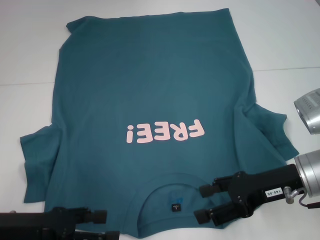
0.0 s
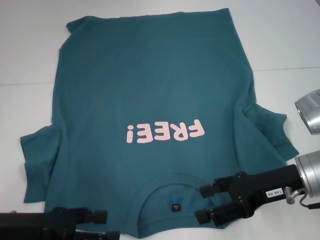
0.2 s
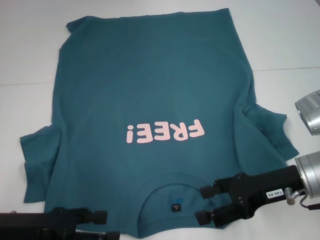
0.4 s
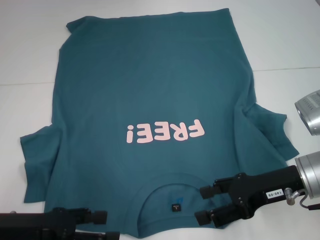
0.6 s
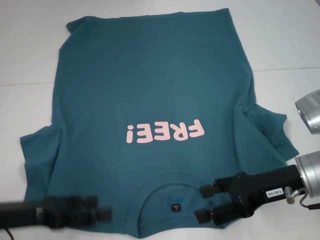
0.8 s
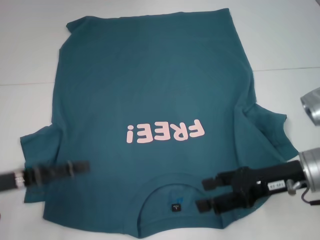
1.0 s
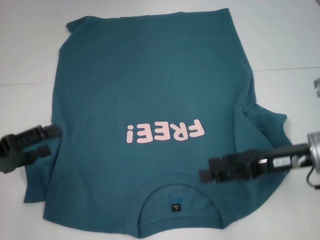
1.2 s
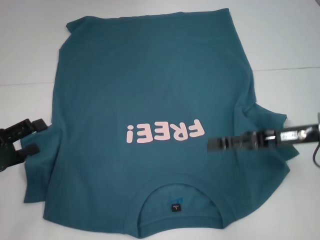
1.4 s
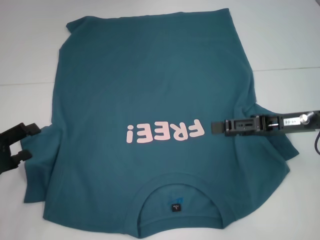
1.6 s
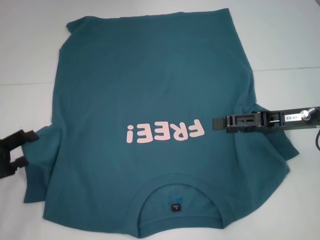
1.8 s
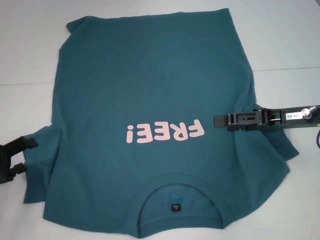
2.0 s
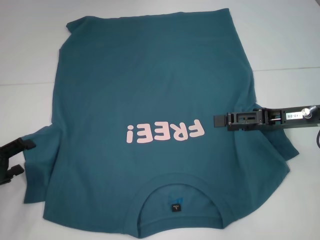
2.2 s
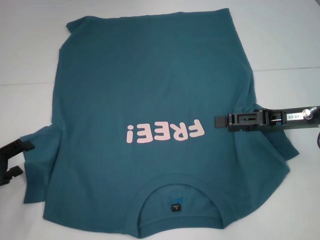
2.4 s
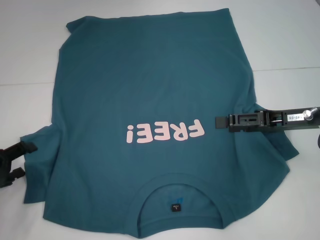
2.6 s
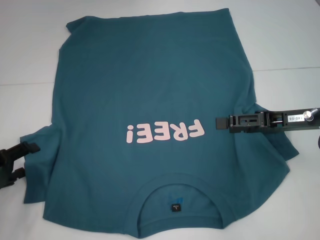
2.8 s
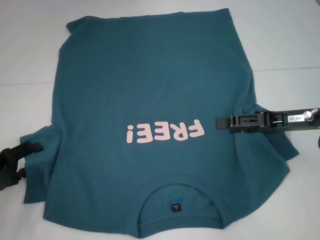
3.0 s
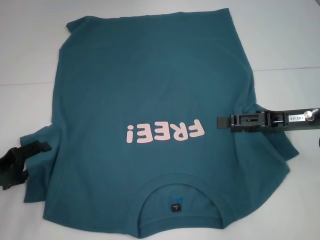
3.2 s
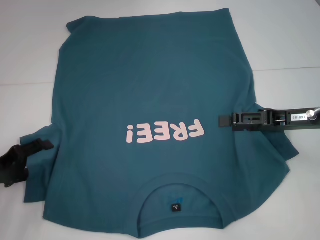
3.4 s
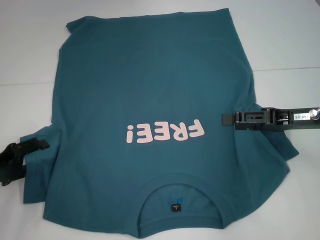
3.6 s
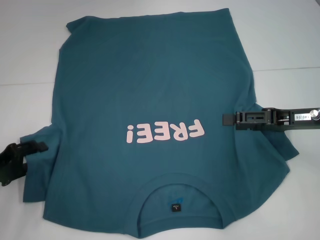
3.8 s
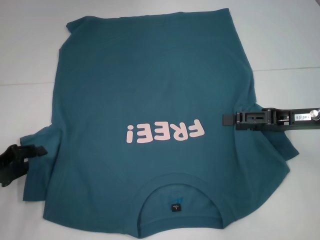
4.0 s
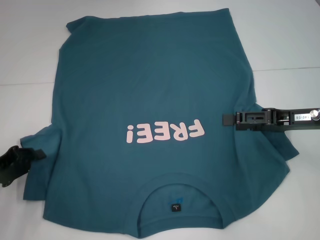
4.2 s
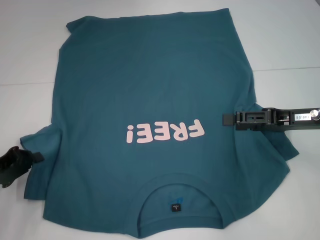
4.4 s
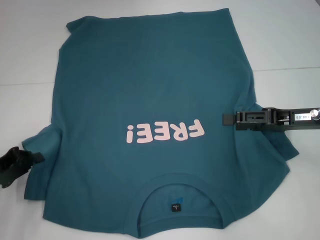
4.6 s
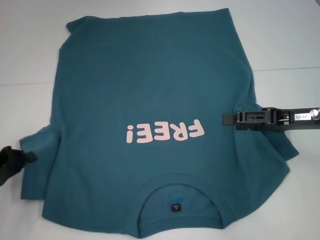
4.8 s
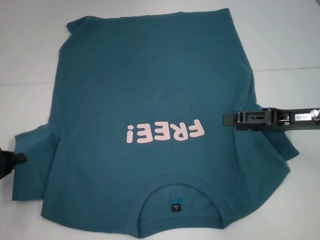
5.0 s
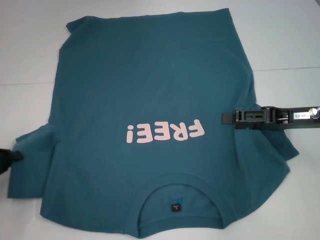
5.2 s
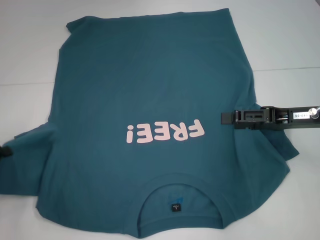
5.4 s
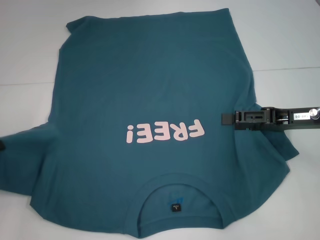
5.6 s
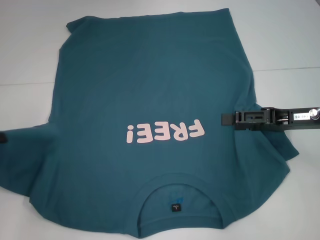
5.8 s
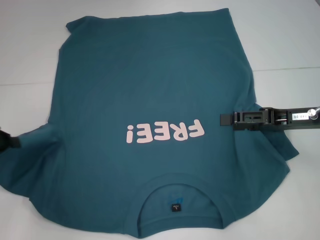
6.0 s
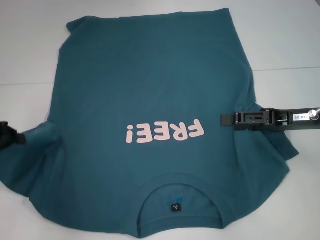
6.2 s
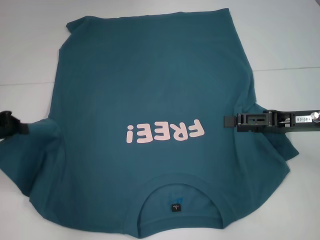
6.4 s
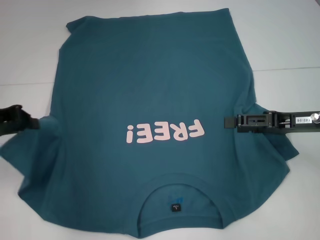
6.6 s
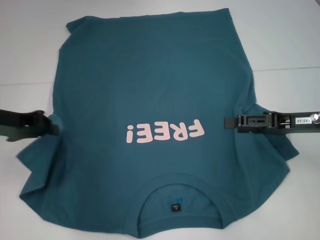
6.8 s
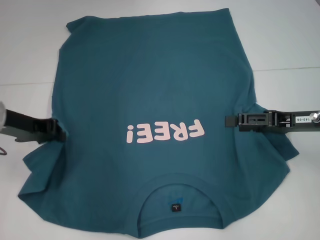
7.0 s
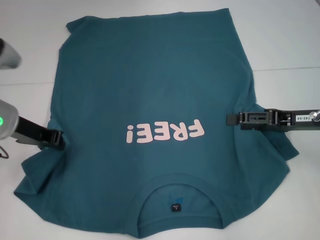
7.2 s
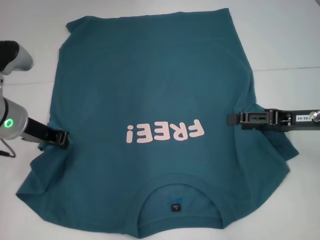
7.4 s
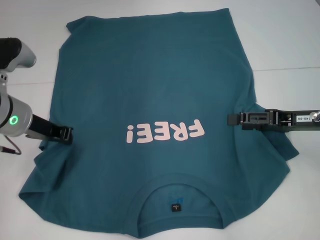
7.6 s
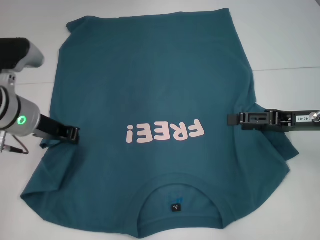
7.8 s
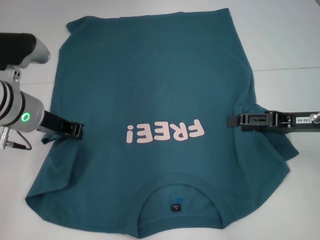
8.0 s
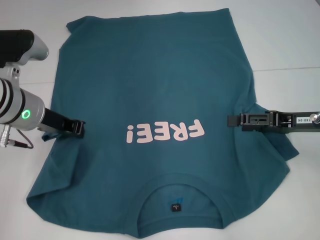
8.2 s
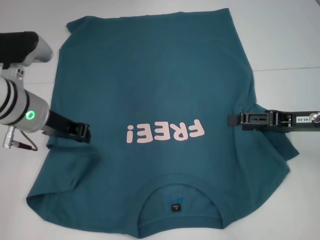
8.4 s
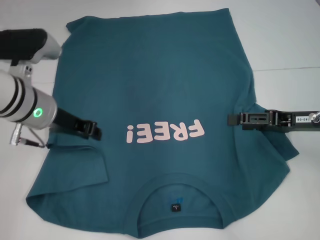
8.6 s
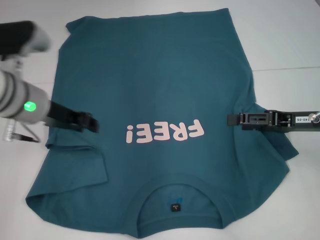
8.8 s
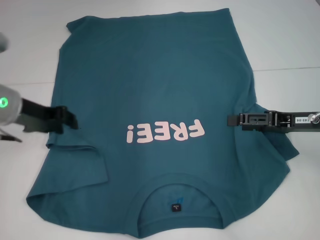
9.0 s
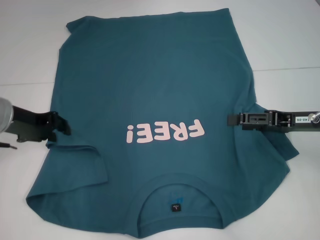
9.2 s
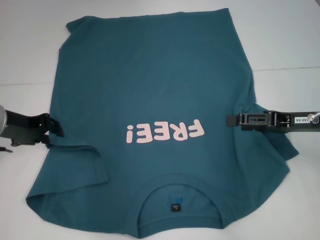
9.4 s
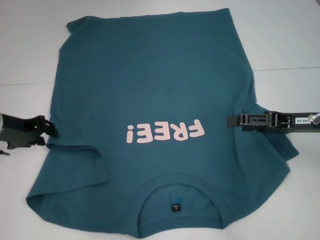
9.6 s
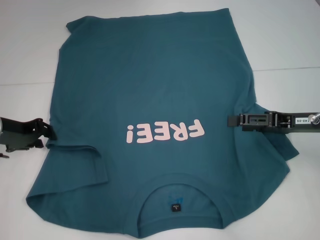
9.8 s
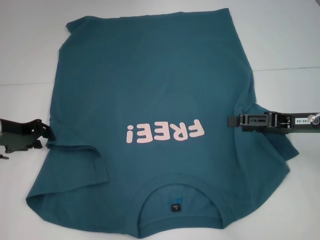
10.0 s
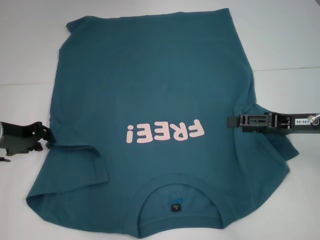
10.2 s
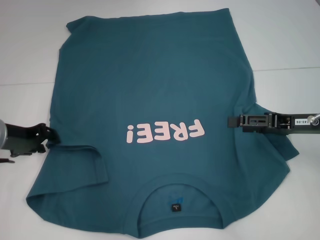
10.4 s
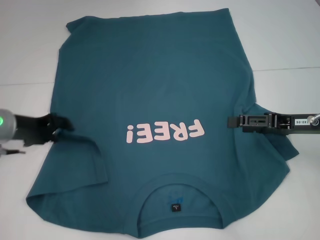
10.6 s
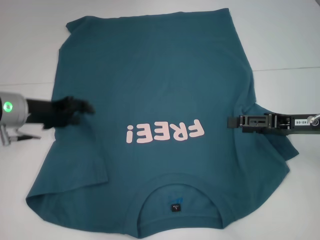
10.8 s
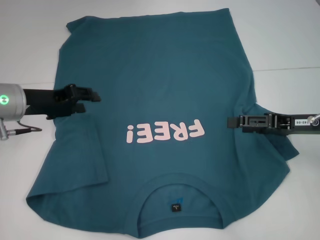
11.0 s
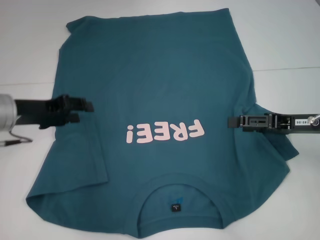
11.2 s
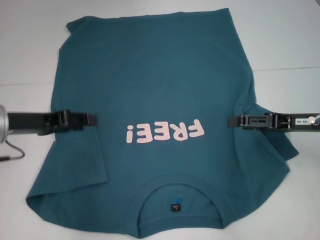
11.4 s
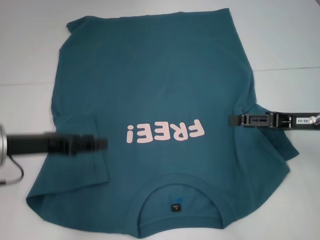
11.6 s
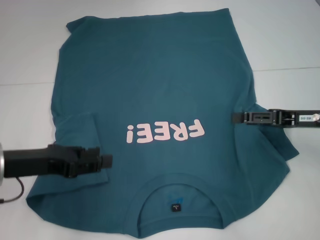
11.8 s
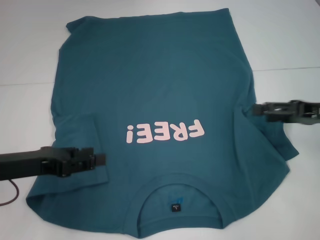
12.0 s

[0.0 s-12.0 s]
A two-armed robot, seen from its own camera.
Step, 0.0 to 10.8 s: Fold the bottom left sleeve with your left hand.
0.0 to 1.6 s: The left gripper is displaced to the left by approximately 10 cm; the right gripper moves roughly 5 cm.
1.6 to 3.0 s: There are only small adjustments of the grippers.
3.0 to 4.4 s: The left gripper closes up.
4.4 to 6.0 s: The left gripper moves upward, some 5 cm.
6.0 to 7.6 s: The left gripper travels to the right and forward by approximately 15 cm.
7.6 to 9.0 s: The left gripper opens.
9.0 to 10.4 s: The left gripper moves downward, some 5 cm.
10.4 to 12.0 s: The left gripper heads backward, covering some 10 cm.

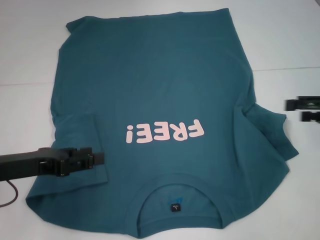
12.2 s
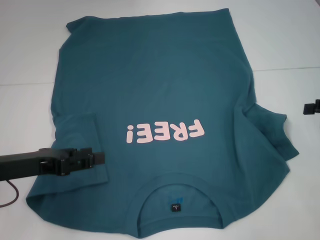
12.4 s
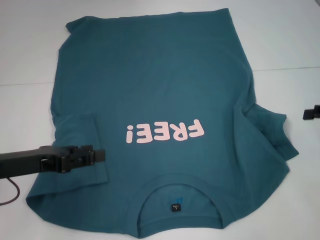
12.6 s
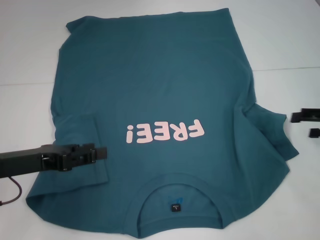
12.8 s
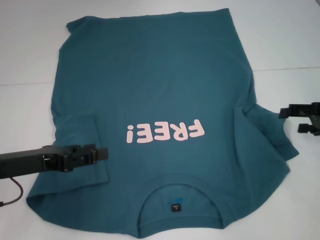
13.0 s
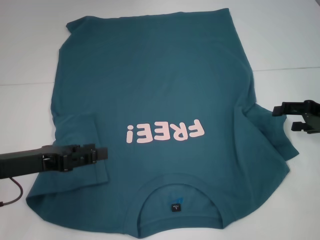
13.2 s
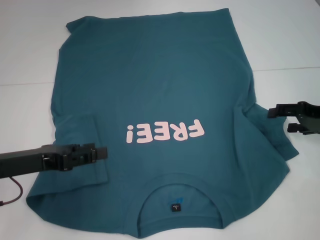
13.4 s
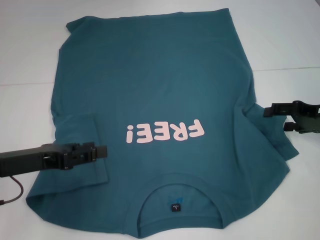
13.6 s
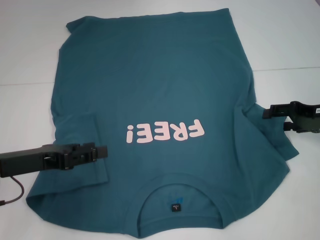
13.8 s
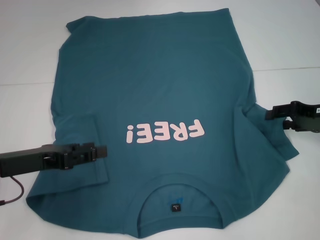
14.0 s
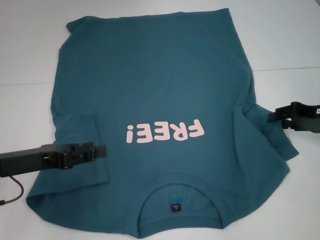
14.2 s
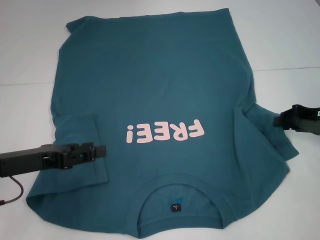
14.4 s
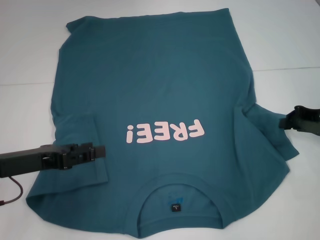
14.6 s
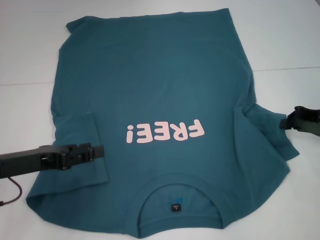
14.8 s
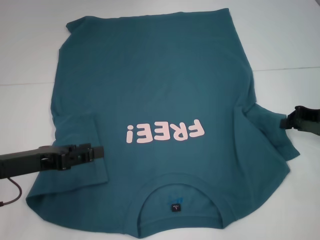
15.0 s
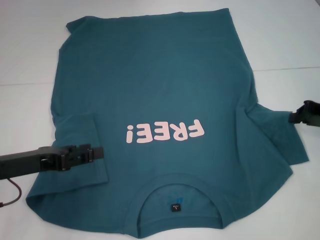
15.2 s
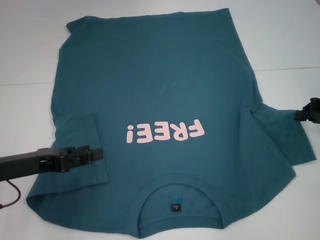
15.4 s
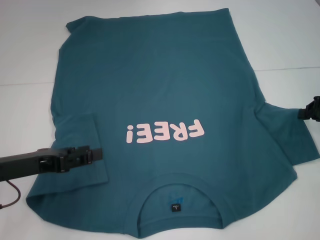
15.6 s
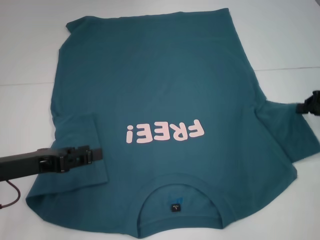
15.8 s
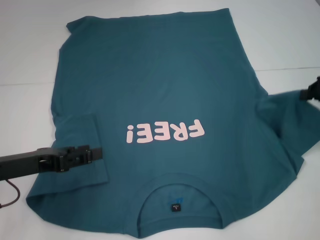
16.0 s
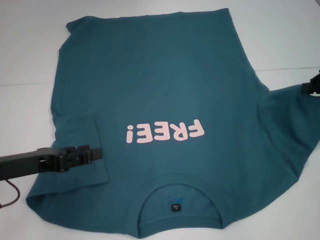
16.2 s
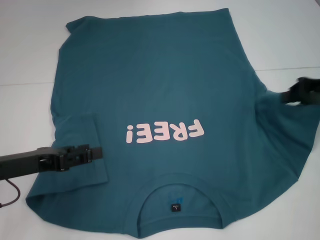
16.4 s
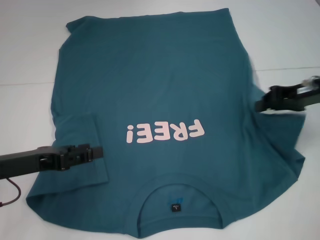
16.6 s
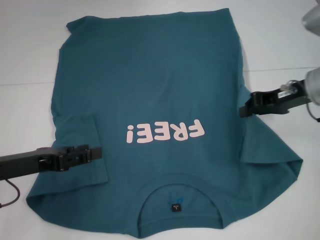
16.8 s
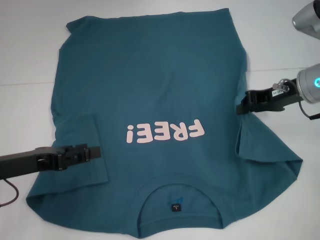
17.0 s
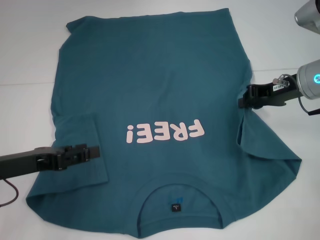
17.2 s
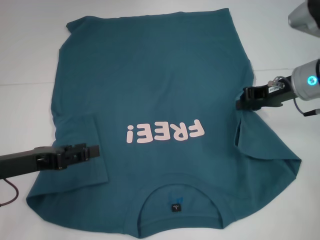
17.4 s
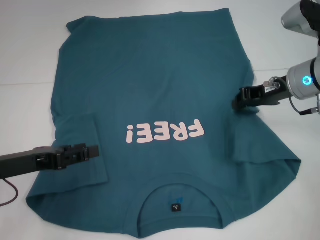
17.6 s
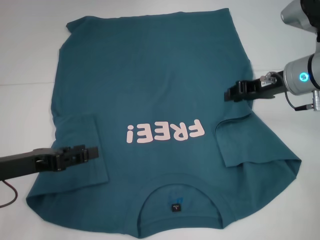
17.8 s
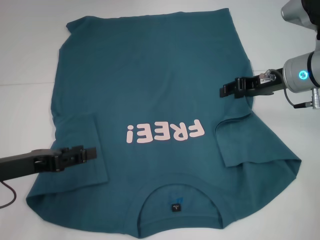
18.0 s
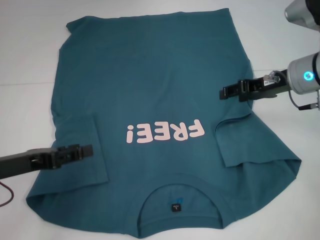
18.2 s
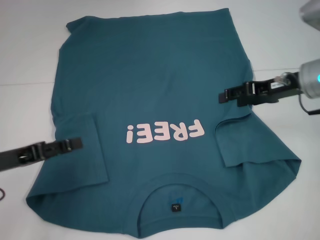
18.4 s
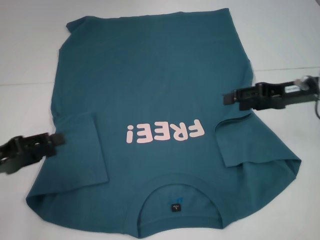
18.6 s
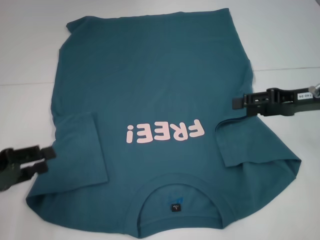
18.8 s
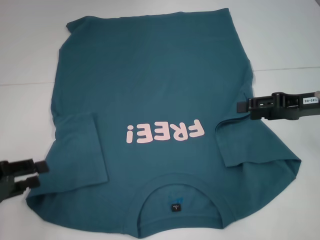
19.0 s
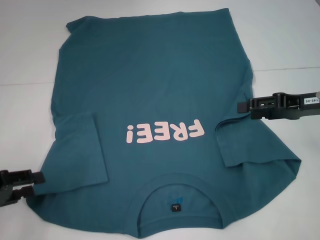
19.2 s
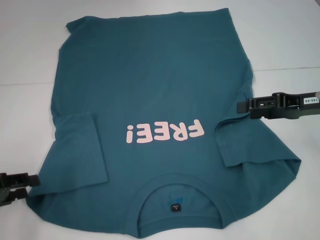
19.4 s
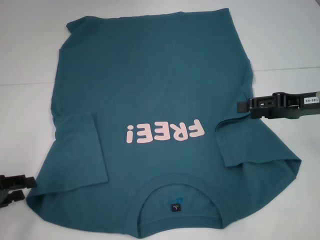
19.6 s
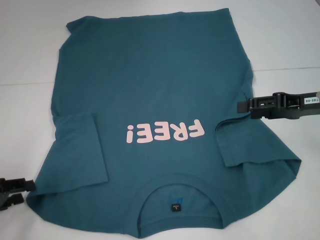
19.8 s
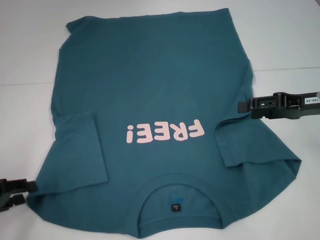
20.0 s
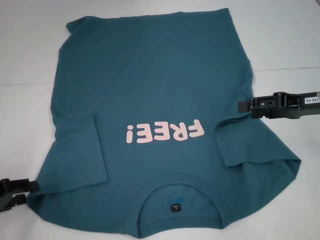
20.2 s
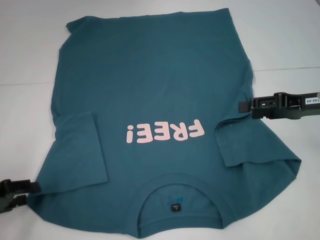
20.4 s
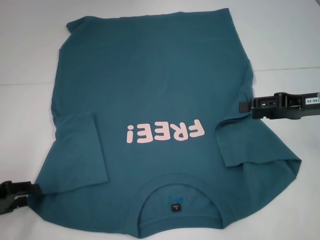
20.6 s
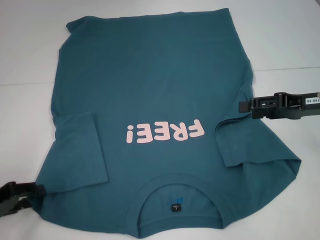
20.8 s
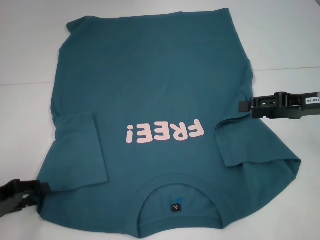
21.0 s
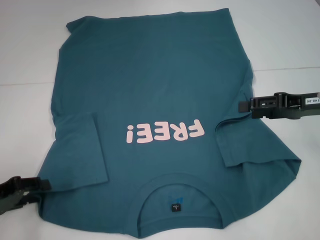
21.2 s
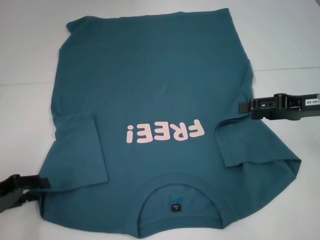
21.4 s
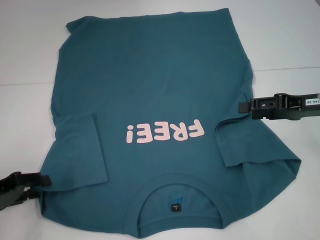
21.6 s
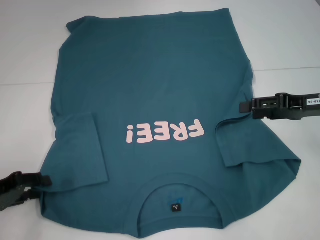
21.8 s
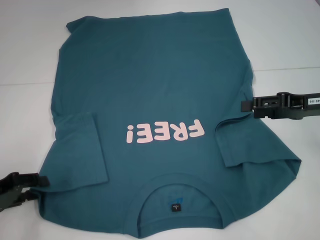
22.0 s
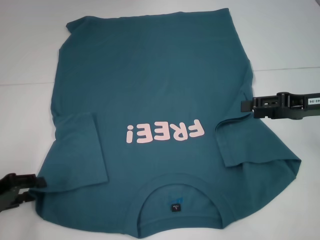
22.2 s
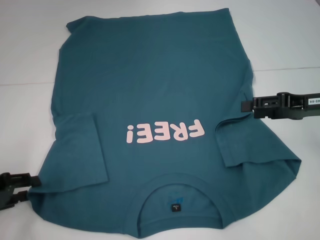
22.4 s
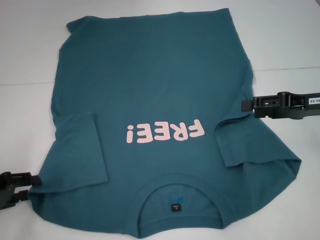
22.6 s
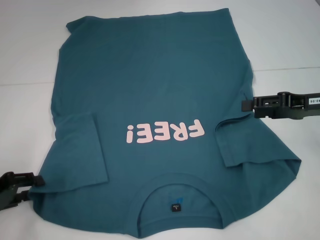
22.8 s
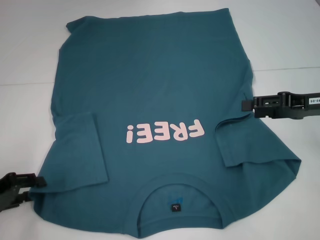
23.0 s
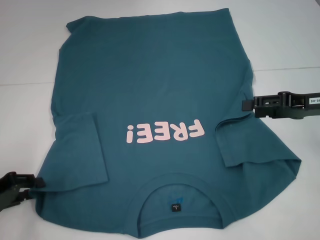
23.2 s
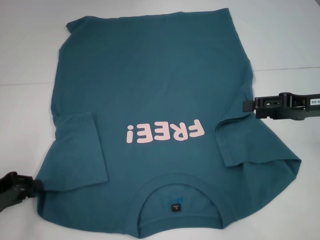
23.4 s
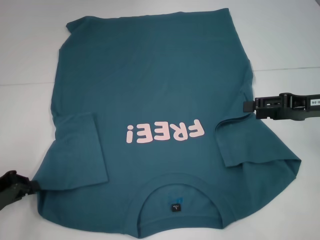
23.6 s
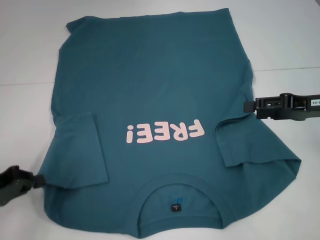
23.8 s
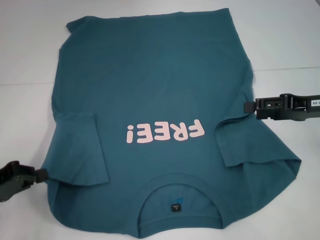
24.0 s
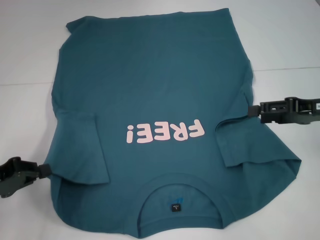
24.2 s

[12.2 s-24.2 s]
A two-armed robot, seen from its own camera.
Step, 12.2 to 17.6 s: Fold the bottom right sleeve to the right.
Step, 17.8 to 23.4 s: Grab the bottom left corner with your left hand.
12.2 to 13.8 s: The right gripper moves about 5 cm.
13.8 to 15.2 s: The right gripper closes up.
15.2 to 16.6 s: The right gripper shifts roughly 10 cm to the left and upward.
16.6 to 18.2 s: The right gripper changes place by approximately 5 cm, and opens its fingers.
18.2 to 19.8 s: The right gripper travels backward and to the right by about 10 cm. The left gripper moves to the left, roughly 5 cm.
19.8 to 22.6 s: The grippers stay close to where they were, moving slightly.
22.6 to 24.2 s: The left gripper closes its fingers.
